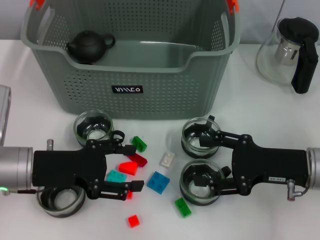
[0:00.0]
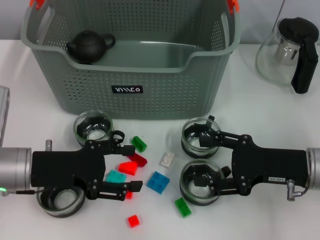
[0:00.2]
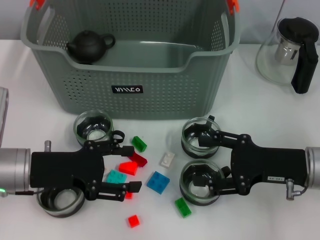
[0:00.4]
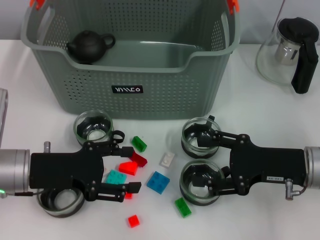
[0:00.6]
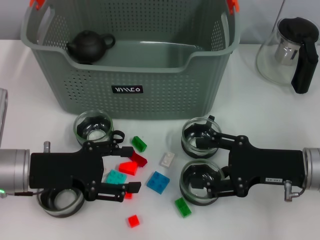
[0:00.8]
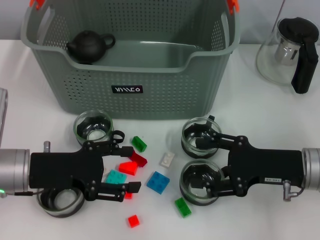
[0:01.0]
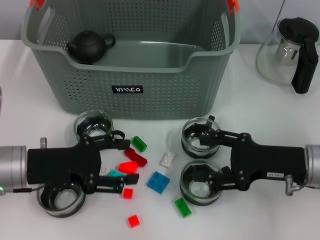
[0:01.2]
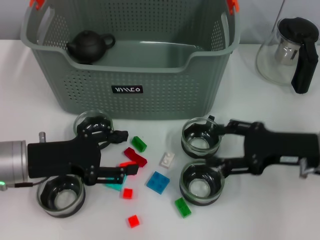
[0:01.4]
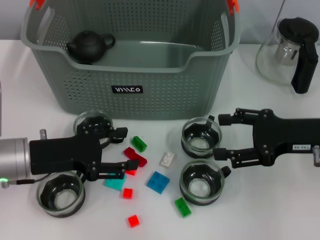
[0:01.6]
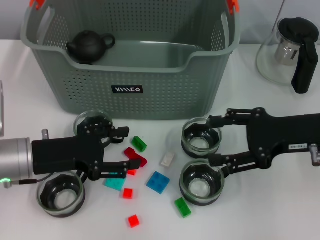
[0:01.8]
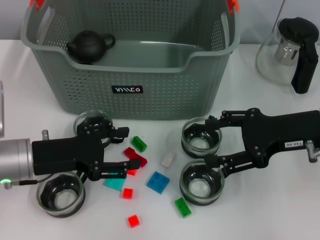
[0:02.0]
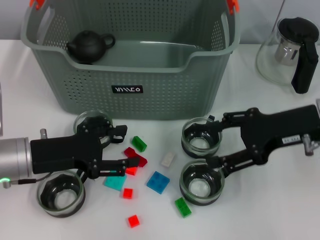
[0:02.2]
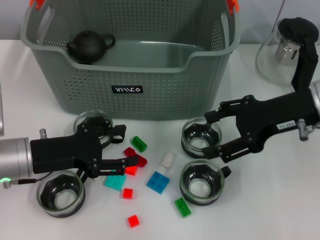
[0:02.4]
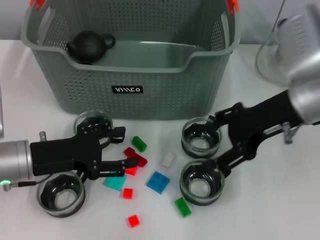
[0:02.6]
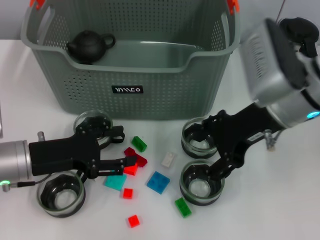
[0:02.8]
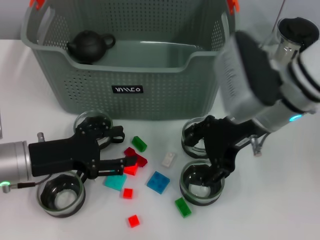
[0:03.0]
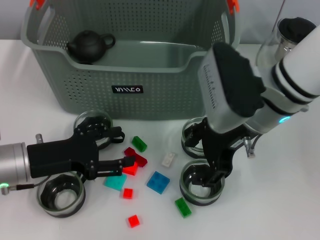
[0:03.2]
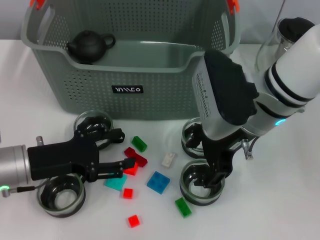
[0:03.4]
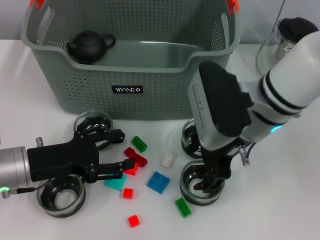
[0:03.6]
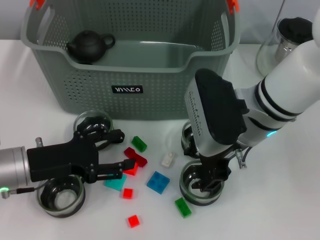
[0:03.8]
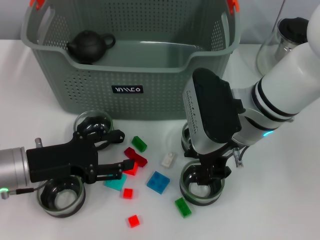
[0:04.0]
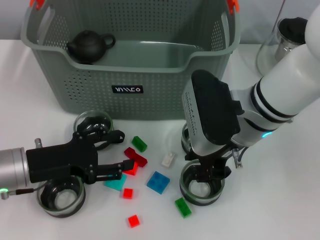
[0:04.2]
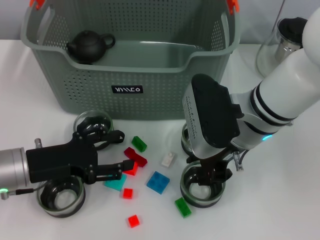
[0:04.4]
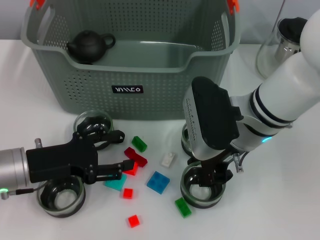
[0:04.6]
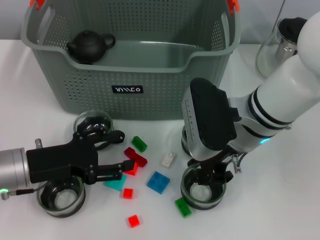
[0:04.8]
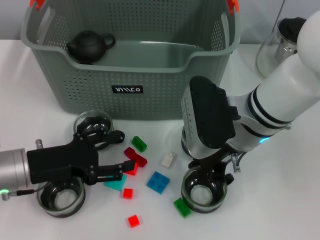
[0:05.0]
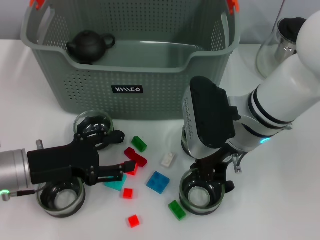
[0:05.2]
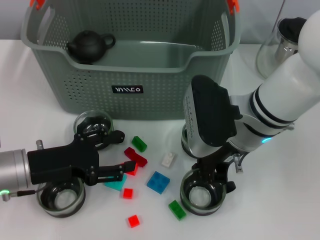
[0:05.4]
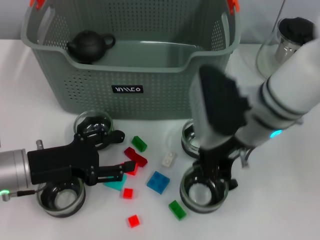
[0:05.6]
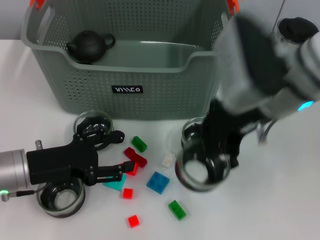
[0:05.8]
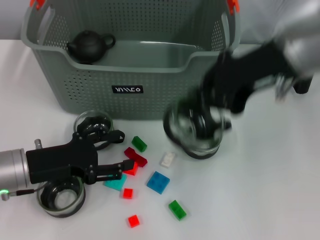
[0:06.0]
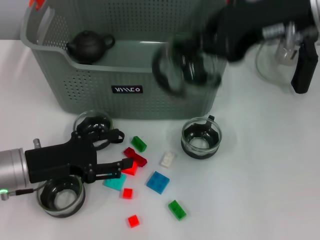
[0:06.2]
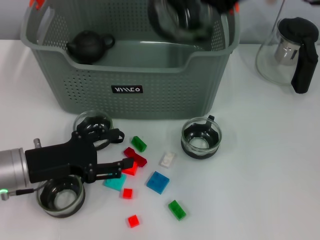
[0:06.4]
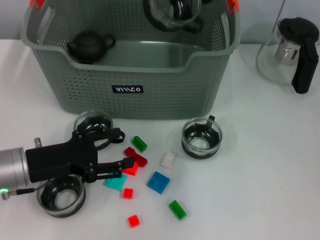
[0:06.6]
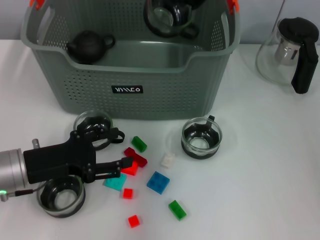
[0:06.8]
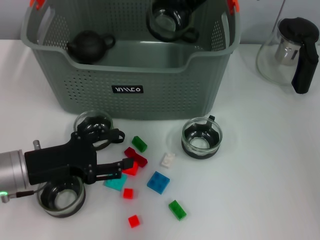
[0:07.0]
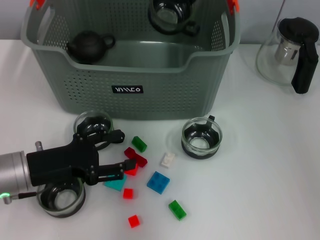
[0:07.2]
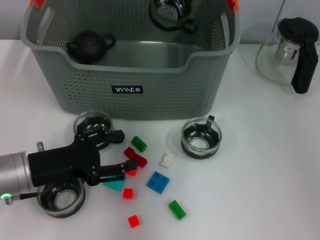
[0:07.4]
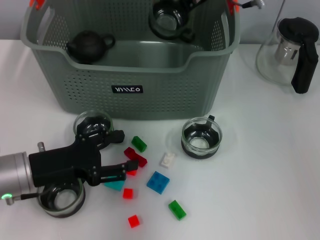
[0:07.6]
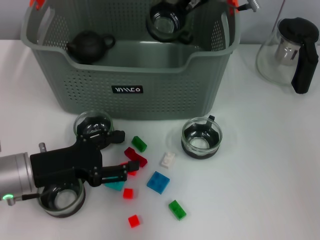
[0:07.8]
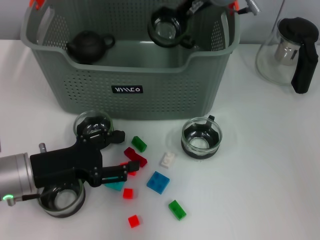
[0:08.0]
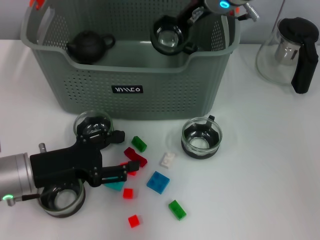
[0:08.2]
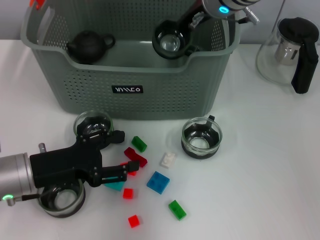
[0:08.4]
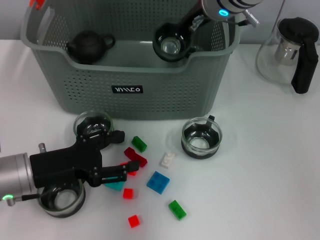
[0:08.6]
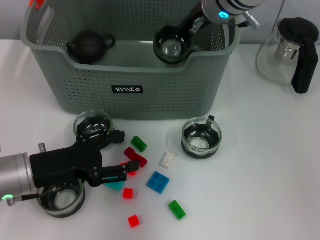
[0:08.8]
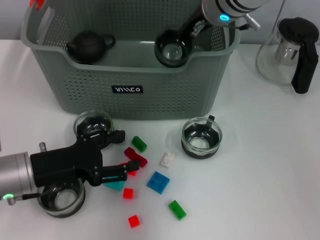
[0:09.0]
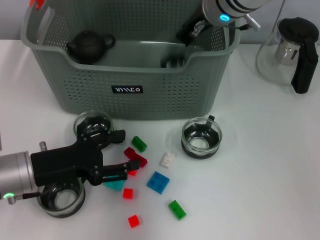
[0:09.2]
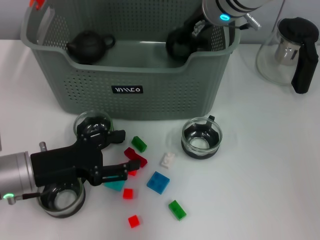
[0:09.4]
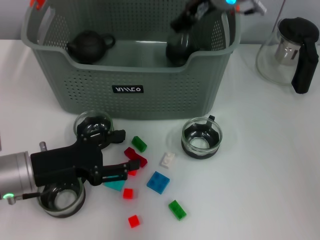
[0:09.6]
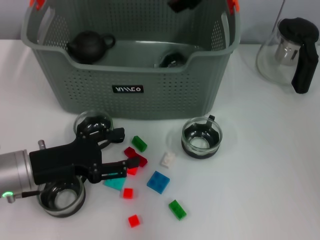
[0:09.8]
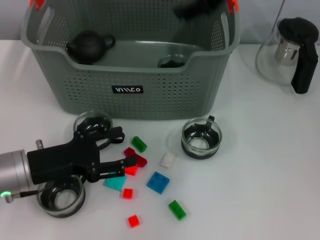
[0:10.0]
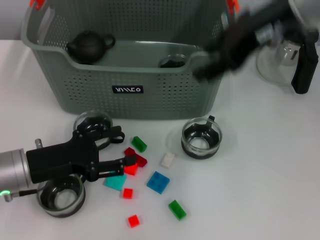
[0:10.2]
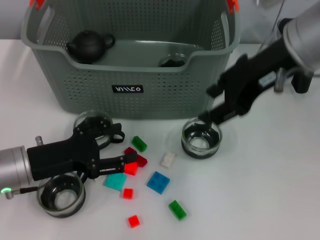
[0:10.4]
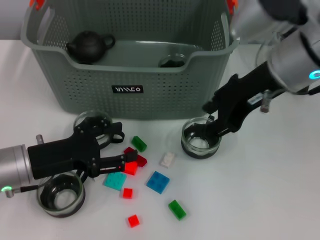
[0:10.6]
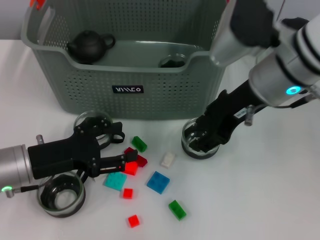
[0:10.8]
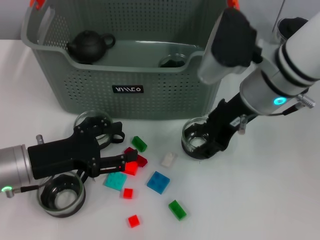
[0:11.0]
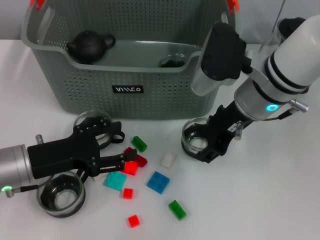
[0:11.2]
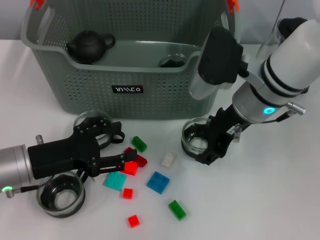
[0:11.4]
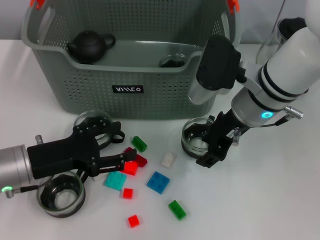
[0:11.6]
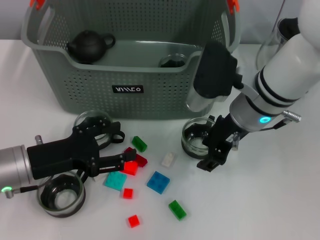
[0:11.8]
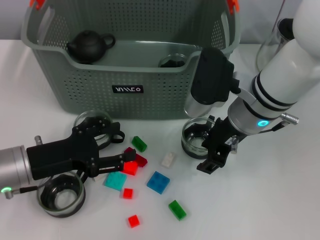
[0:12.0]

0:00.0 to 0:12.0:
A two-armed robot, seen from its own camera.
Task of the whole recording: pick up the teacup on the table and place it into the storage bin, pick up the block on the table and place it into the storage bin.
Step, 0:00.0 to 0:05.2: Grasp the cup with right gripper.
Step, 0:05.4 to 0:09.6: Place the cup in the storage box with right gripper.
0:00.0 to 0:01.6: The right gripper ends up about 5 cm from where it was.
0:01.6 to 0:03.0: The right gripper travels to the left and upward by approximately 15 cm.
0:03.0 to 0:04.4: The right gripper closes.
0:04.4 to 0:06.0: The right gripper moves upward and to the right, about 15 cm, and closes its fingers.
0:06.0 to 0:07.6: The right gripper goes some 15 cm forward and to the left.
0:07.6 to 0:09.0: The grippers stay close to where they were, moving slightly.
0:09.0 to 0:10.4: The right gripper heads backward, to the right and upward, covering approximately 15 cm, and opens its fingers.
0:10.4 to 0:12.0: The right gripper heads downward, covering approximately 15 cm.

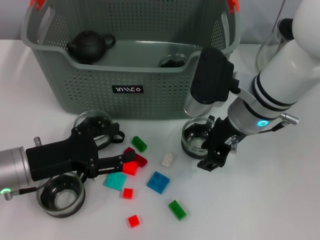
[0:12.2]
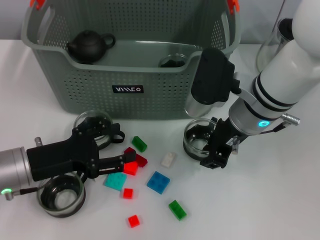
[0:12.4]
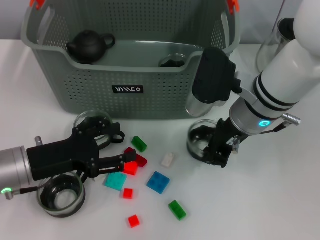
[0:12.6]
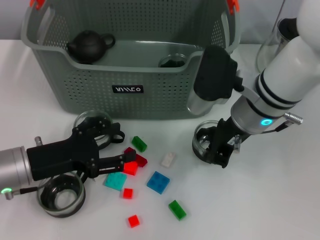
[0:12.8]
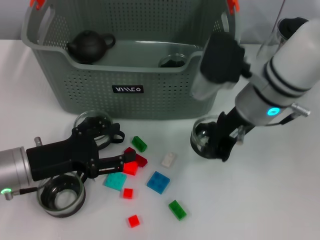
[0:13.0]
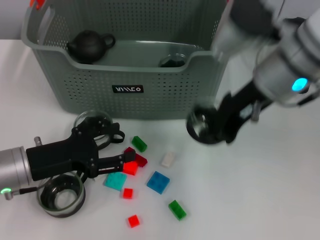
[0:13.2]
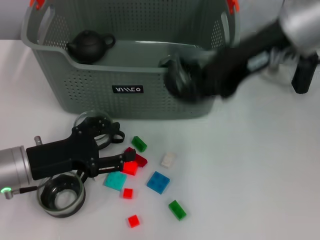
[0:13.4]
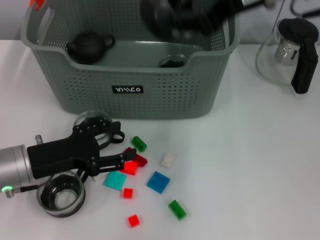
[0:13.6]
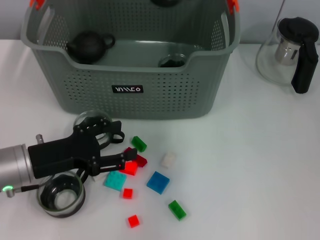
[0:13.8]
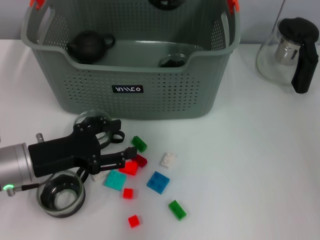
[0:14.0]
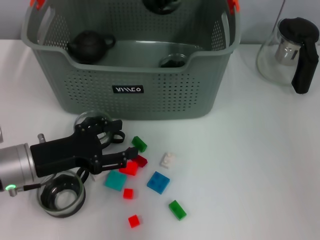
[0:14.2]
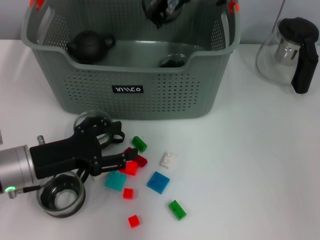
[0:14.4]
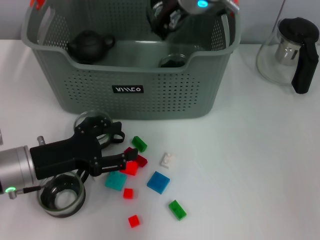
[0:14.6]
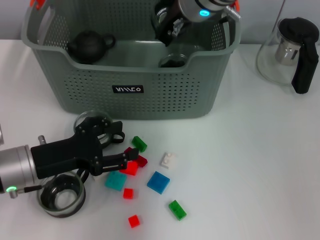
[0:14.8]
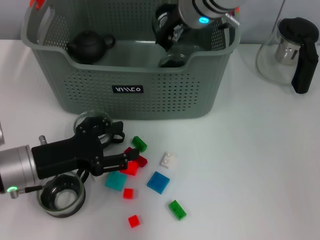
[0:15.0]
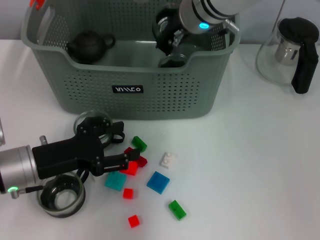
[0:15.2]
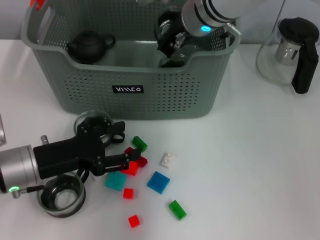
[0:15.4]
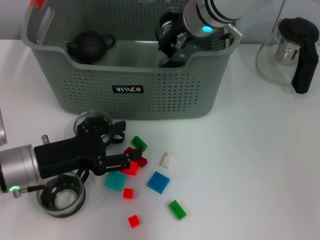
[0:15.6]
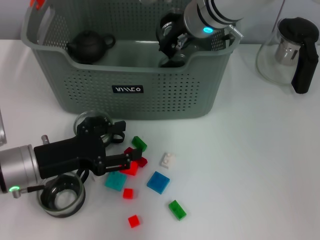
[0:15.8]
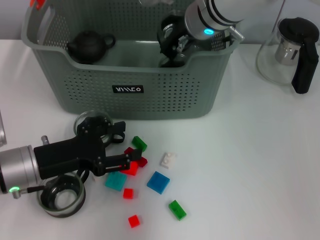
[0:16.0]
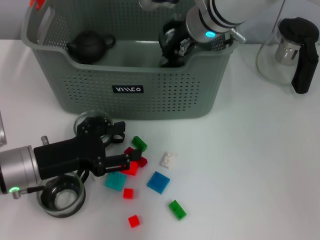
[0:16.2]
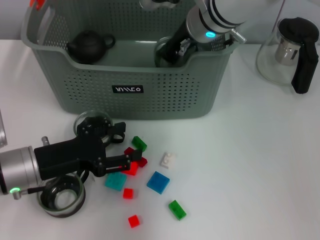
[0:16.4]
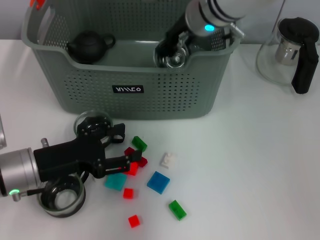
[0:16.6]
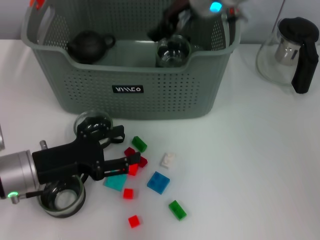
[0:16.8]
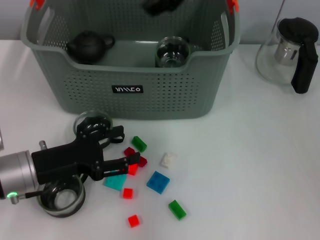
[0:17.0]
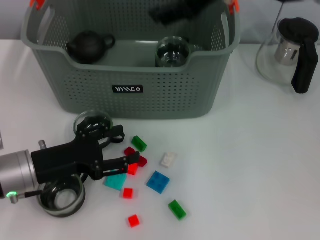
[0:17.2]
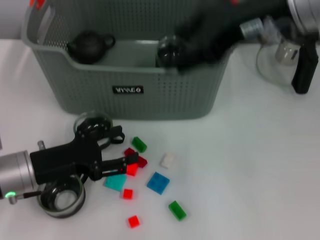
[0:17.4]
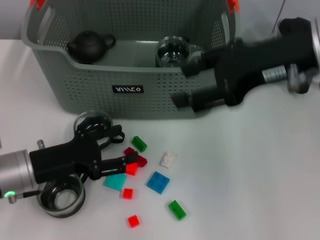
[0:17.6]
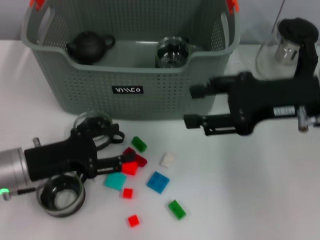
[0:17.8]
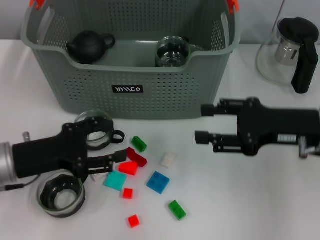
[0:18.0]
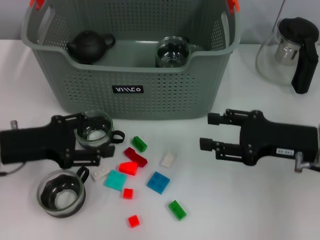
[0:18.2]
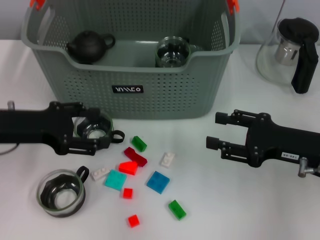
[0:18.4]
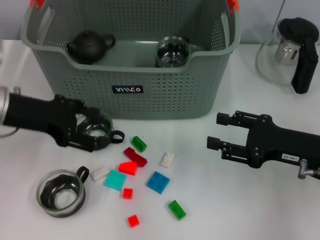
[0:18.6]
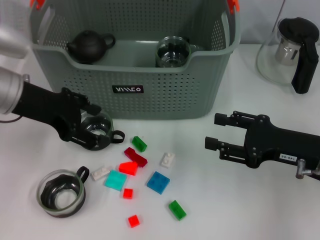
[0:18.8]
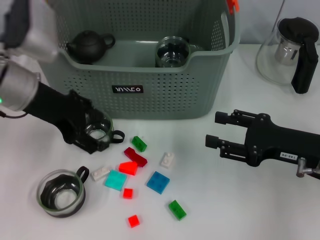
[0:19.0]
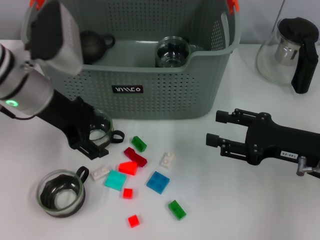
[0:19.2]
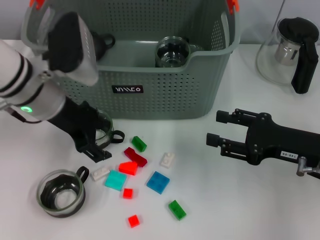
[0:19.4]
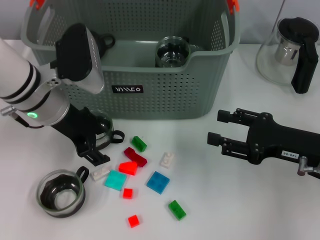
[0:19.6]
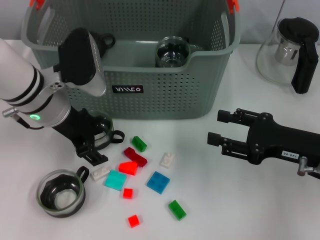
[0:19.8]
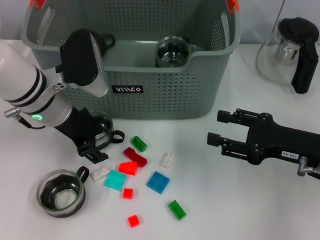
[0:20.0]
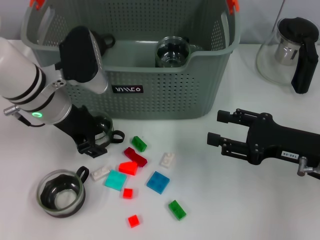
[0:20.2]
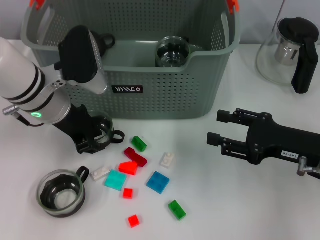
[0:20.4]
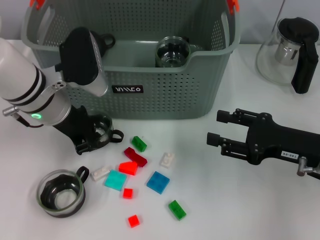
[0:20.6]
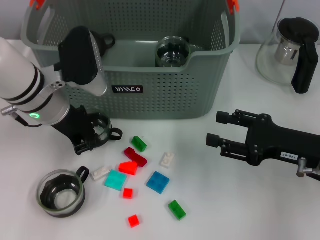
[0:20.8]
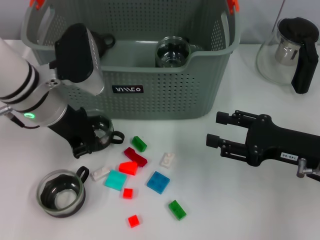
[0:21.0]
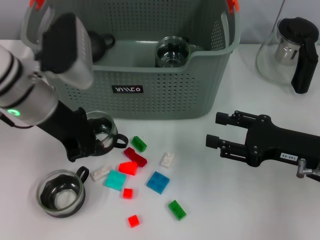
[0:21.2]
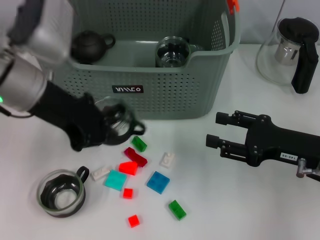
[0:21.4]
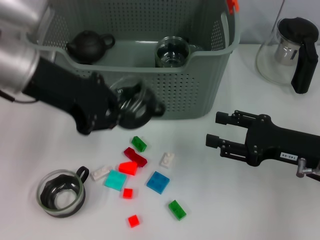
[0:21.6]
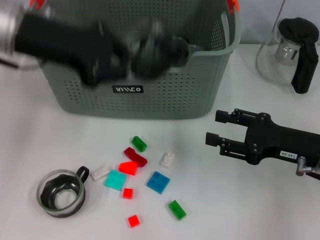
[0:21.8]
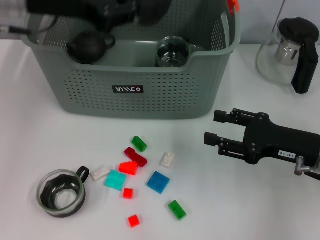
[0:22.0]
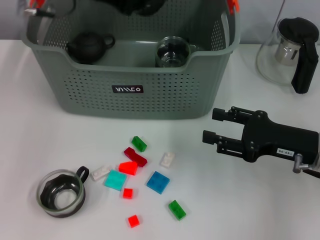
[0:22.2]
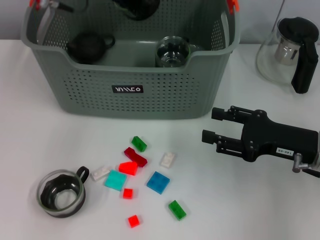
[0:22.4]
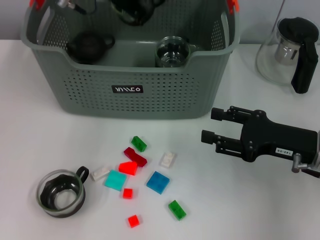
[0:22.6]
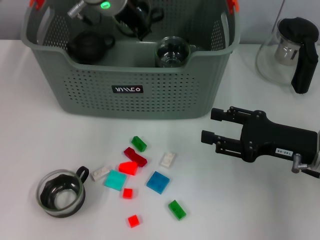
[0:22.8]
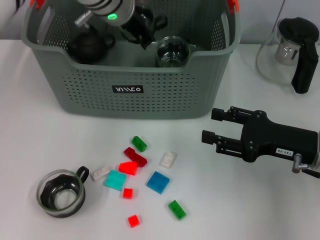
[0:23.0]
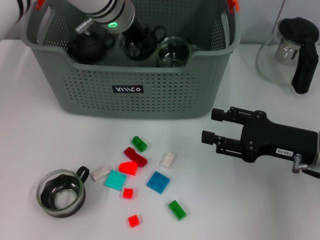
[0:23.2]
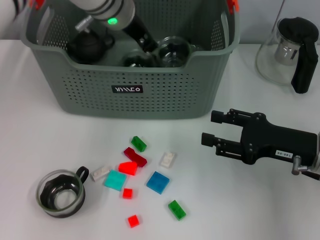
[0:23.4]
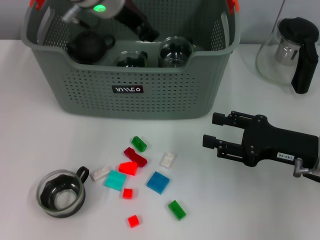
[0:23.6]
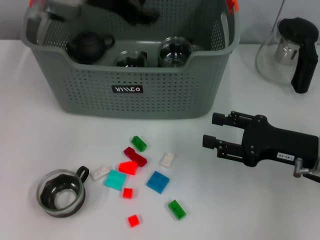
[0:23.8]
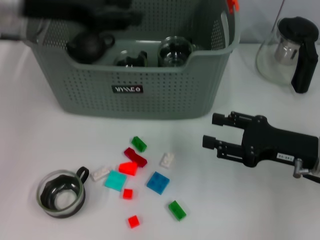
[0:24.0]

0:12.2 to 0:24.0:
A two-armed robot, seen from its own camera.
Task of the whole recording: pick up the teacup on the table and place it into the storage bin, pick up the block on the table and place it into the storage bin.
Step, 0:12.8 to 0:17.0: Place the cup in the storage box with right gripper.
Step, 0:17.2 to 0:20.6: Grasp the cup with left gripper.
Step, 0:21.0 to 0:23.4: Place the cup in the storage box with left gripper.
0:12.2 to 0:13.6: The right gripper goes some 20 cm upward, and closes.
0:13.6 to 0:15.2: The right gripper heads downward, to the left and forward, covering approximately 20 cm.
0:15.2 to 0:16.6: The grippers make only small movements.
0:16.6 to 0:18.2: The right gripper heads to the right, backward and downward, covering approximately 25 cm, and opens its fingers; the left gripper changes place by some 5 cm.
0:18.2 to 0:19.6: The left gripper goes roughly 15 cm to the right and forward.
0:19.6 to 0:21.0: The left gripper closes up.
0:21.0 to 0:22.6: The left gripper travels forward, upward and to the right by some 15 cm.
0:22.6 to 0:24.0: The left gripper travels to the left and backward by about 15 cm, and opens up.
